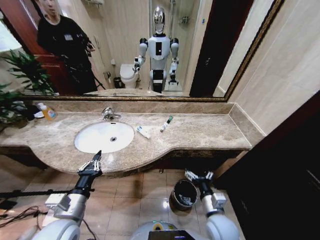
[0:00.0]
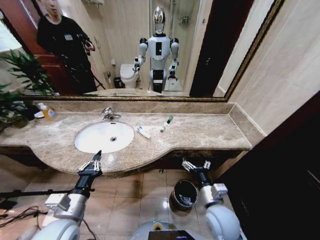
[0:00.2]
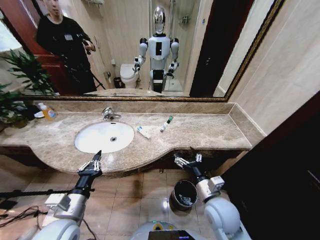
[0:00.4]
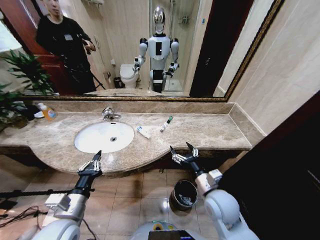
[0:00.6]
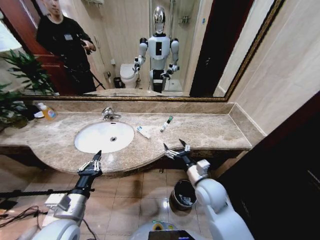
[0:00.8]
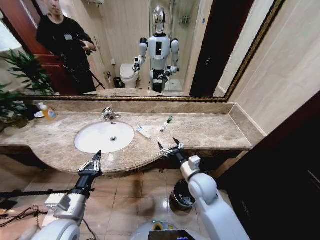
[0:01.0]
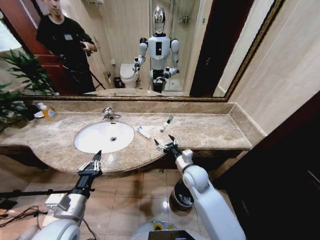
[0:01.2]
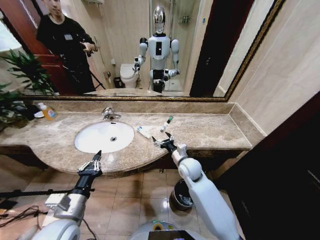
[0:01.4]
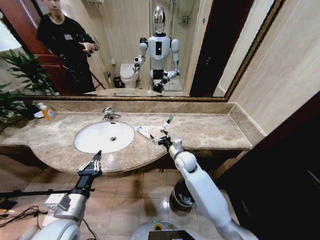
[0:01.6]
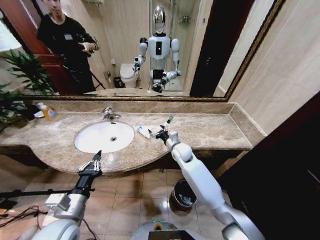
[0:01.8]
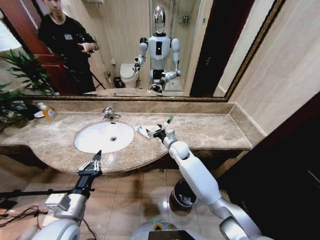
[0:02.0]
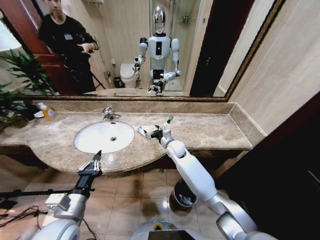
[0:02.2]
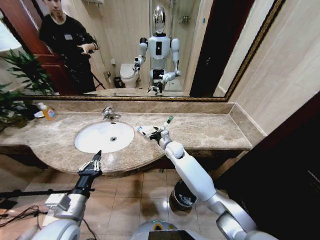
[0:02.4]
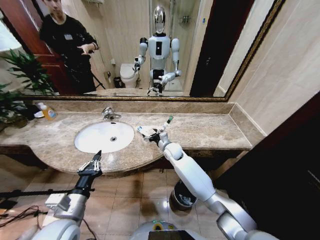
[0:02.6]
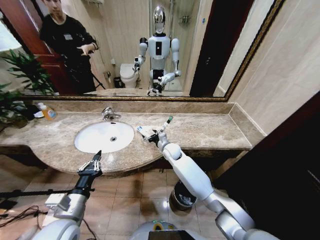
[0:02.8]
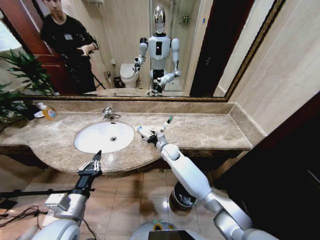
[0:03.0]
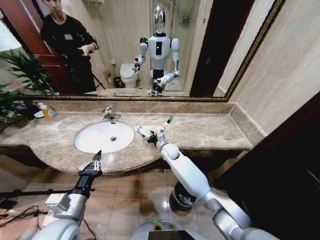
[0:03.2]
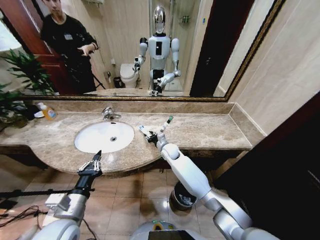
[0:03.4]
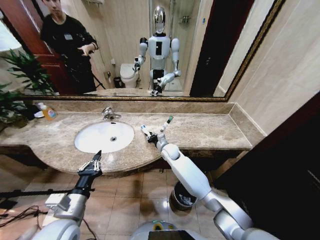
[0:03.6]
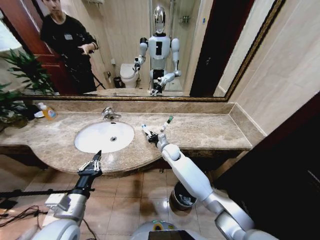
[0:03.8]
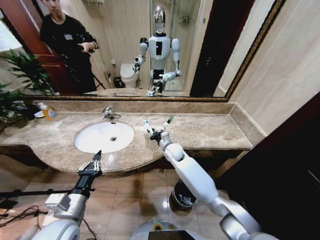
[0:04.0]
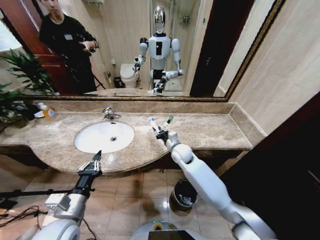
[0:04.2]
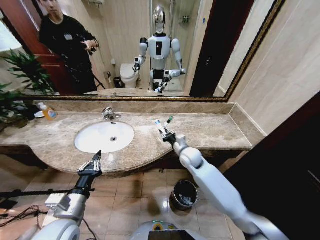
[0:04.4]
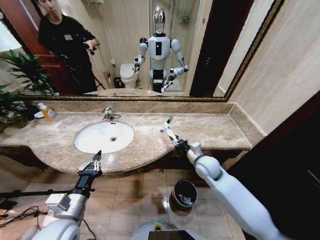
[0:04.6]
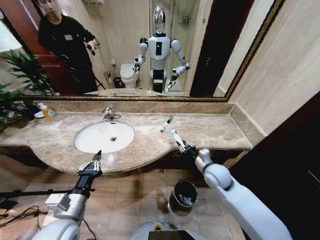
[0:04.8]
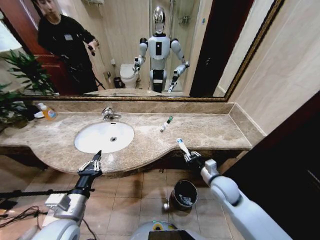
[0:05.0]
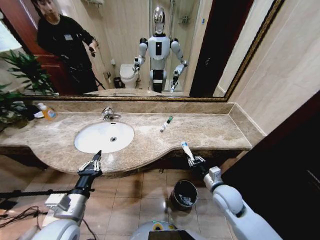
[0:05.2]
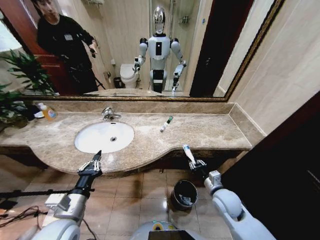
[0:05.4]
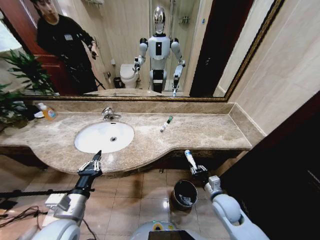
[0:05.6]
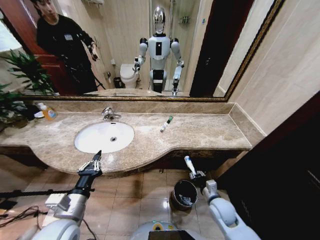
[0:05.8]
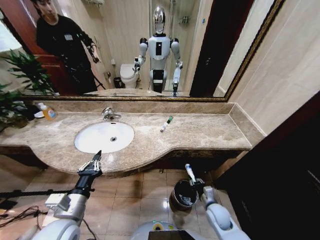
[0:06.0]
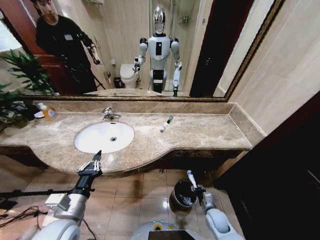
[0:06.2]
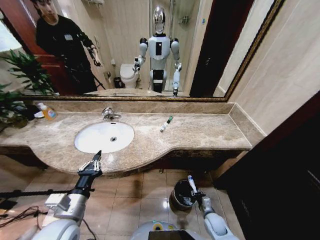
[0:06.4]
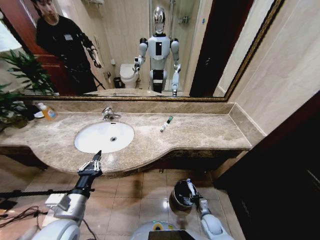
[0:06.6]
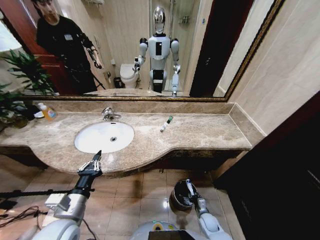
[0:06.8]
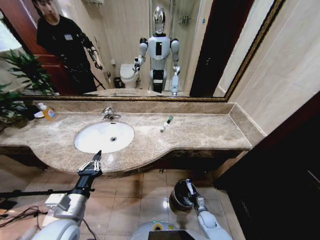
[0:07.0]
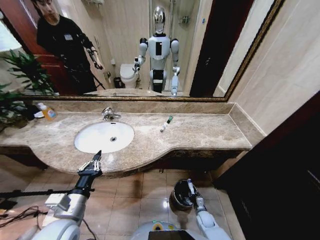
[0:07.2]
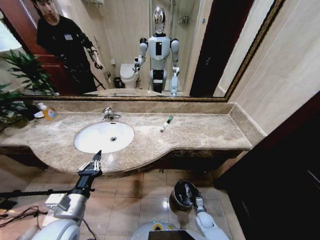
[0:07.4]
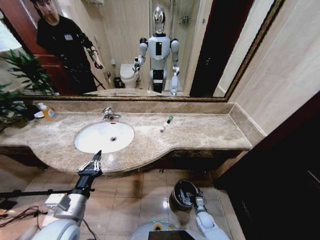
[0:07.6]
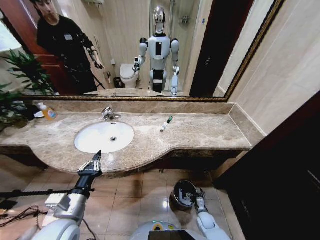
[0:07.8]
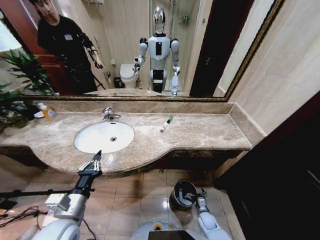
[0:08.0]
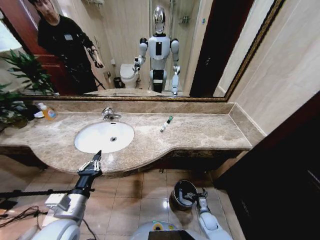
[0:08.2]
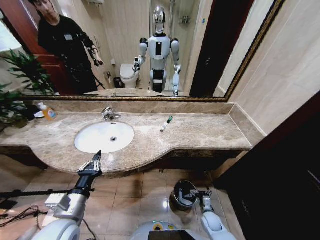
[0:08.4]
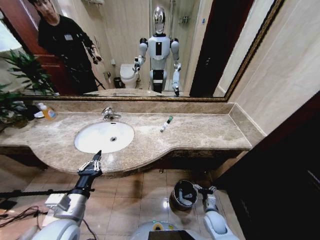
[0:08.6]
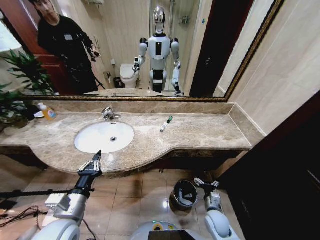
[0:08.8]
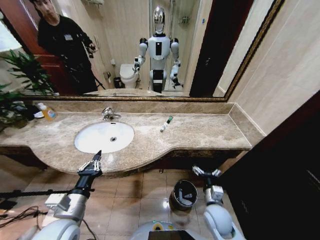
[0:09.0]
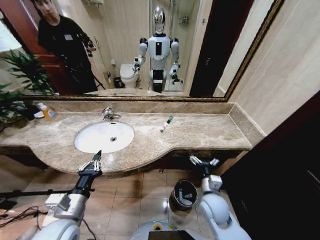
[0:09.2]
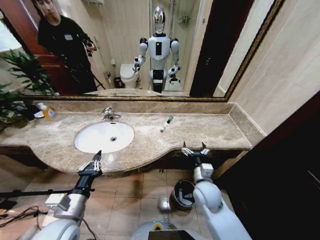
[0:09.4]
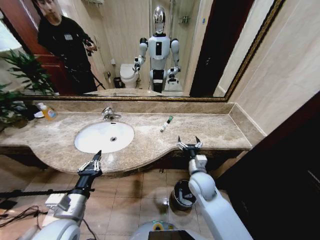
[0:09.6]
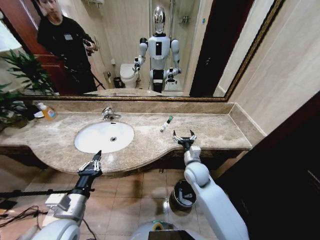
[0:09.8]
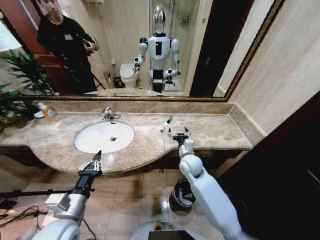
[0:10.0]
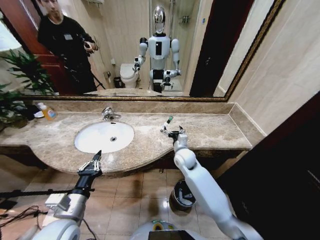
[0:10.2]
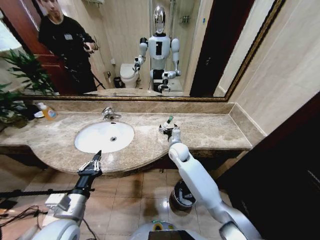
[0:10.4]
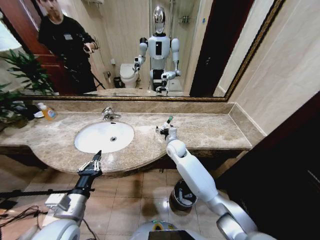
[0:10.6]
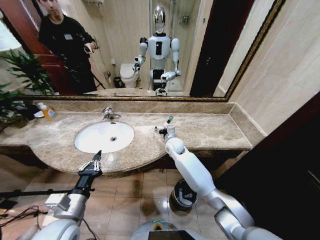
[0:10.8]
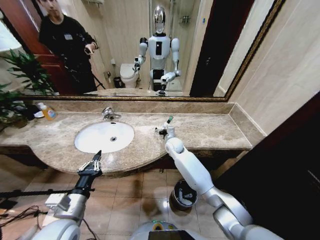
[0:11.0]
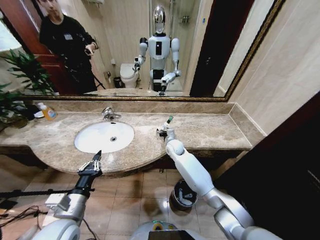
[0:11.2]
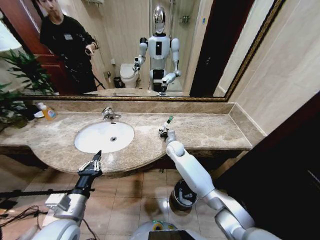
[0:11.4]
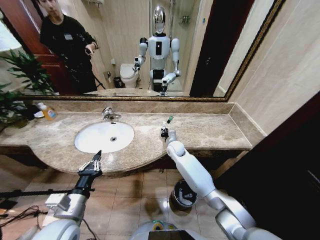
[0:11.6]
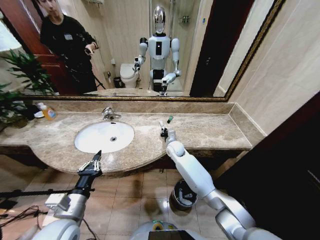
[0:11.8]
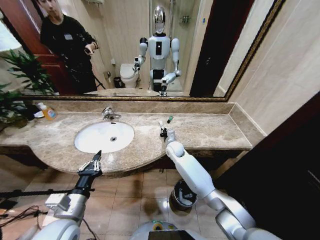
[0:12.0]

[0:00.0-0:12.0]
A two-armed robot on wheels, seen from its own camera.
Task of the whole recording: Pick up the trash from the sink and place it in the trash bin.
0:00.0 to 0:01.6: The right gripper travels forward by roughly 25 cm.
0:01.6 to 0:03.0: The right gripper travels forward and to the left by some 10 cm.
0:03.0 to 0:04.4: The right gripper is displaced to the right, backward and upward by approximately 15 cm, and closes up.
0:04.4 to 0:06.0: The right gripper travels downward, backward and to the right by some 30 cm.
0:06.0 to 0:07.6: The right gripper goes some 15 cm downward, and opens its fingers.
0:07.6 to 0:09.0: The right gripper travels upward by approximately 25 cm.
0:09.0 to 0:10.4: The right gripper moves forward and to the left, some 30 cm.
0:10.4 to 0:12.0: The right gripper shifts by some 5 cm, and closes its fingers.

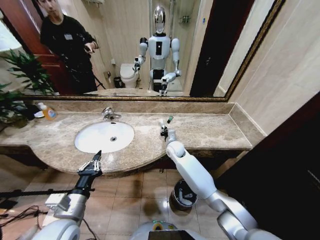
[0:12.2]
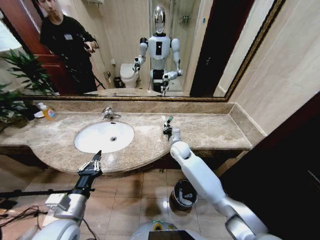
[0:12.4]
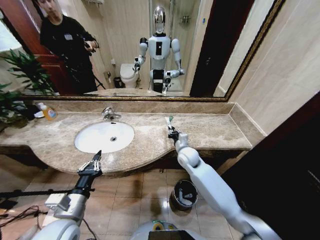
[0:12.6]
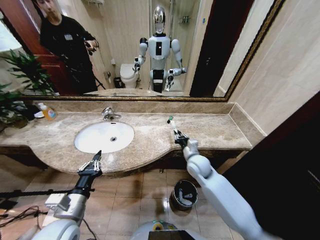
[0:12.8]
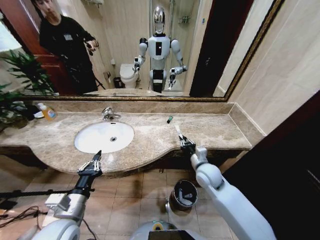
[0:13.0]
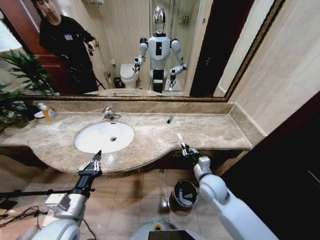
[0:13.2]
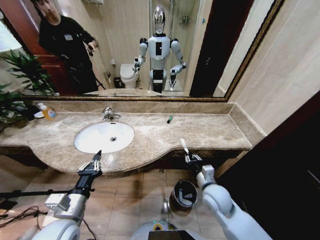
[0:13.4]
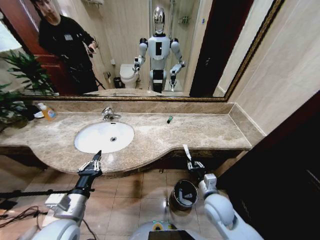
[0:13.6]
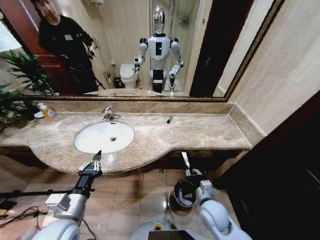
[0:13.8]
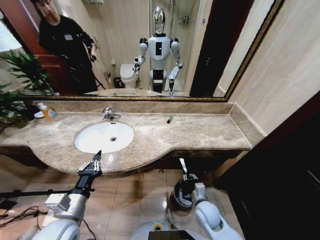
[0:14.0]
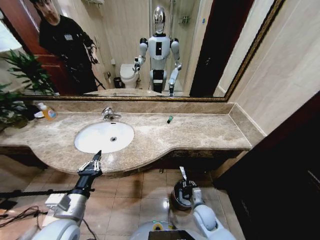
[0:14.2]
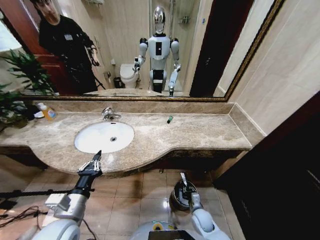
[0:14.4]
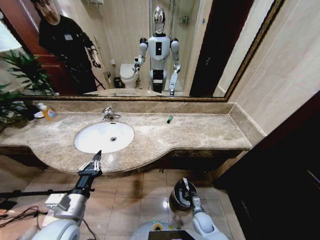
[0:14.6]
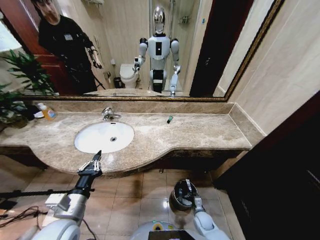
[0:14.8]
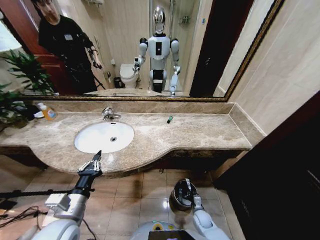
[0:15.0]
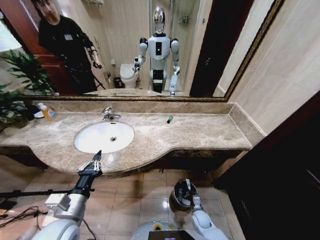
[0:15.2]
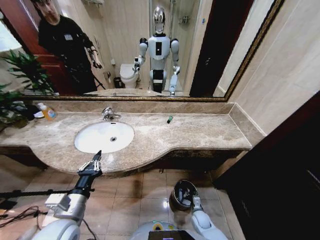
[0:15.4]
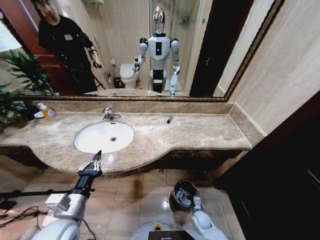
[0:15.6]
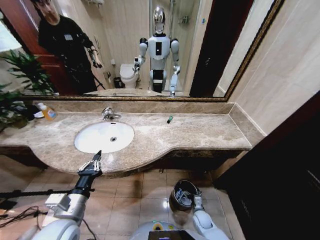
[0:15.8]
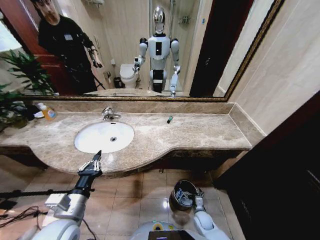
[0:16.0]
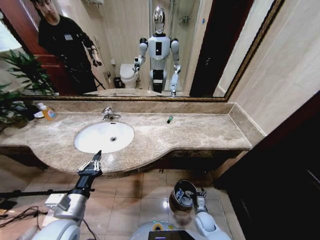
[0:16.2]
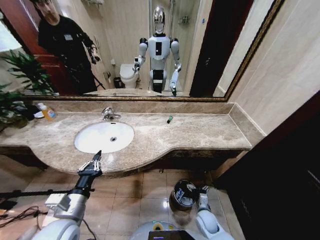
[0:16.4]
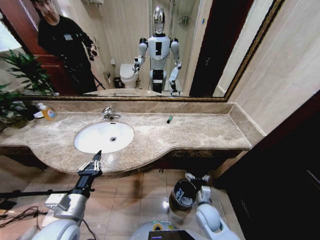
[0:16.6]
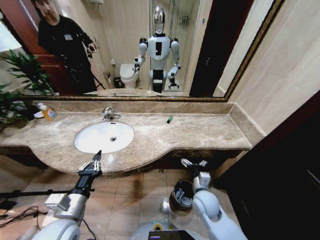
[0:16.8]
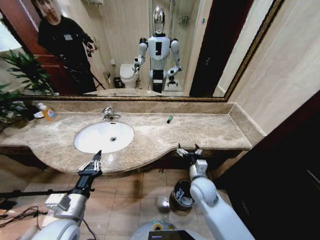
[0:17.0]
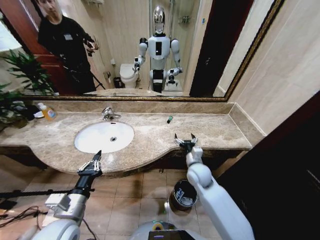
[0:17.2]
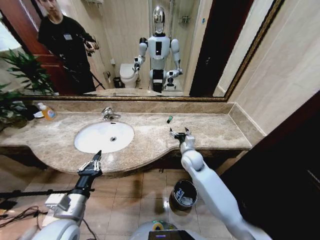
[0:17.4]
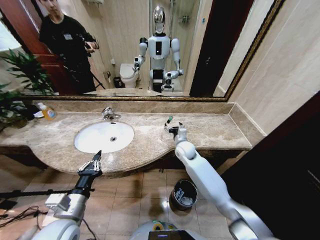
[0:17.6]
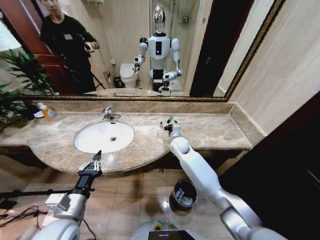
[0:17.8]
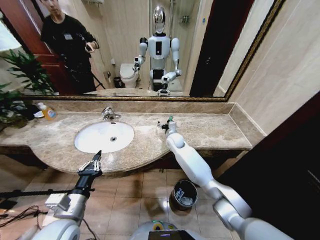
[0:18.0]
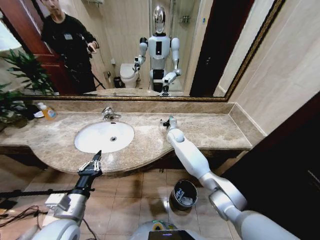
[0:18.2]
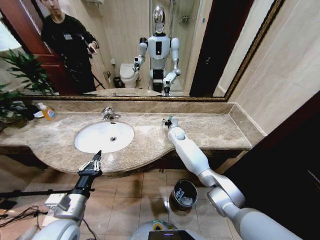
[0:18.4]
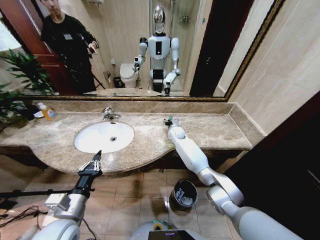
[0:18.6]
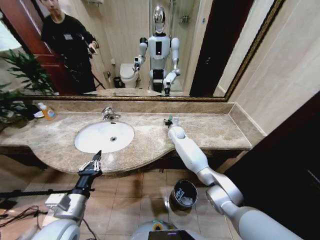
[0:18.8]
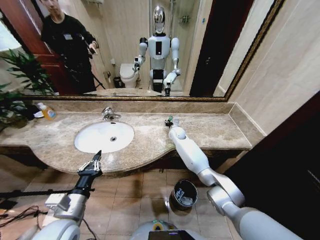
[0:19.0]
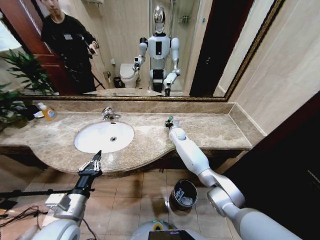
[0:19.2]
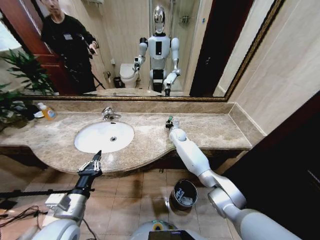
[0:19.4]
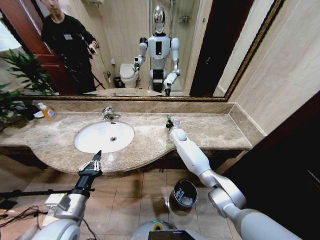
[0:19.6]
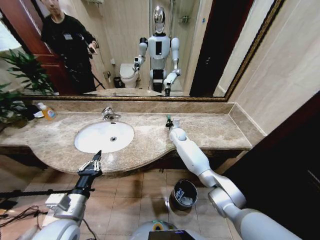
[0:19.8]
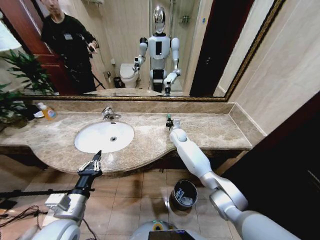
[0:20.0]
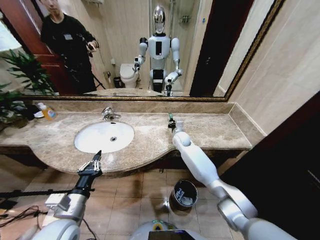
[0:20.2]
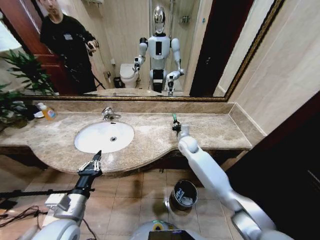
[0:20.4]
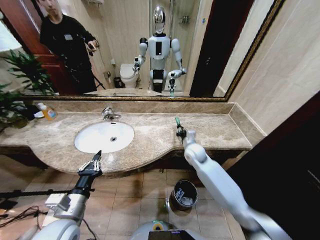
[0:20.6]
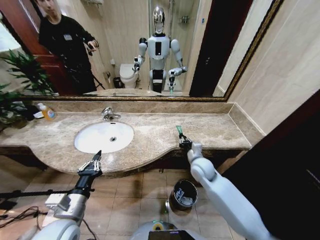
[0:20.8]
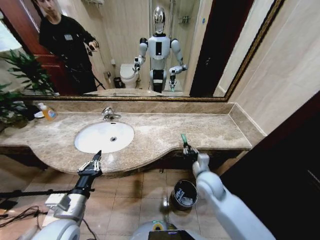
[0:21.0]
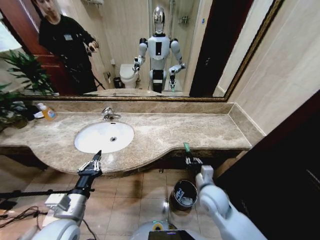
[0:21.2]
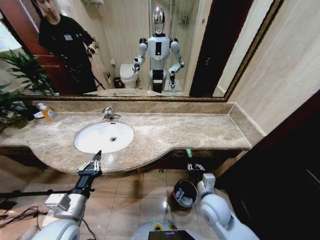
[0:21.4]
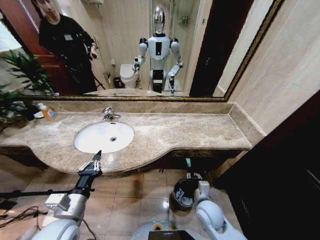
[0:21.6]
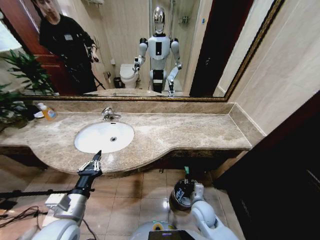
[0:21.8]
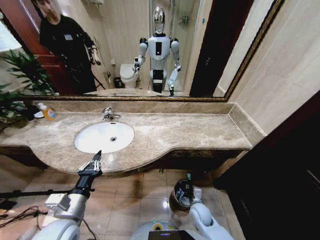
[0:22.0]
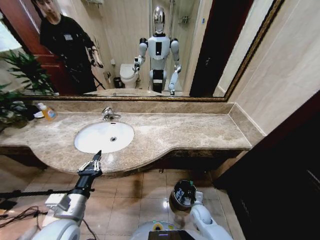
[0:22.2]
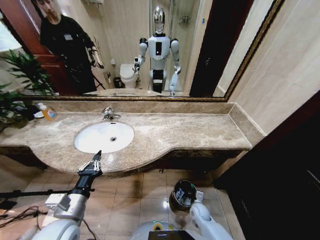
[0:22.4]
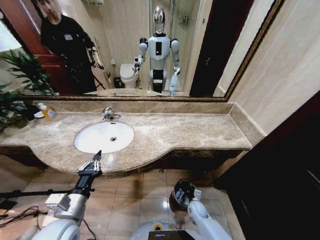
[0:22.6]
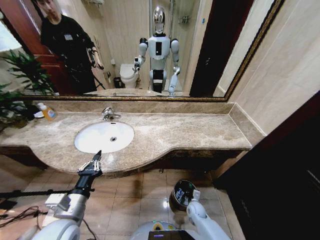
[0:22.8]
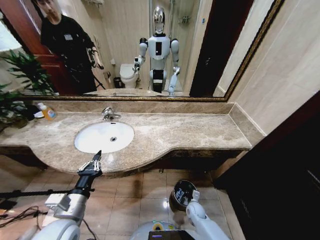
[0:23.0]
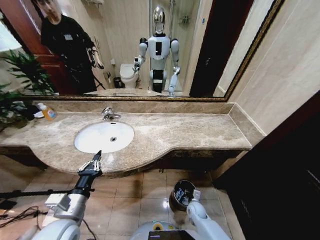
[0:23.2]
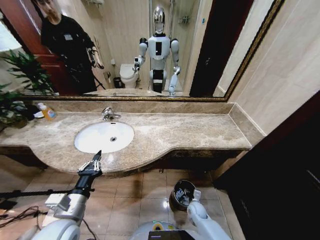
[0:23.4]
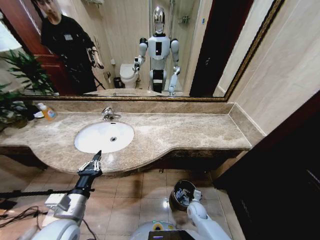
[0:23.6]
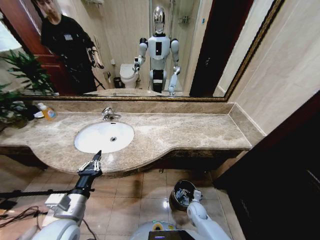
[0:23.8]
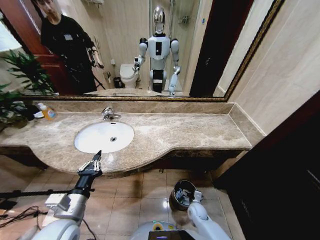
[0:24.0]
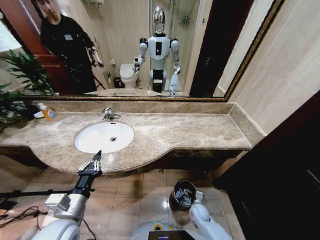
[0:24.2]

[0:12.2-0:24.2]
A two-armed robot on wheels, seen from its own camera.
Task of the whole recording: Pick up the trash from the sink and place it in the trash bin.
0:12.2 to 0:13.8: The right gripper goes about 30 cm backward.
0:13.8 to 0:15.2: The right gripper is displaced downward by roughly 25 cm.
0:15.2 to 0:16.6: The right gripper moves upward, roughly 20 cm, and opens.
0:16.6 to 0:18.2: The right gripper is displaced forward by approximately 35 cm.
0:18.2 to 0:19.8: The right gripper closes.
0:19.8 to 0:21.2: The right gripper travels backward by some 35 cm.
0:21.2 to 0:22.6: The right gripper shifts approximately 25 cm downward.
